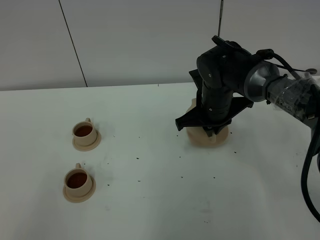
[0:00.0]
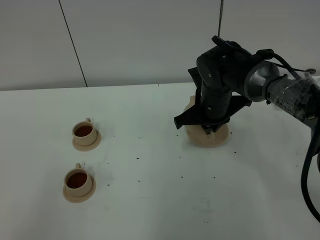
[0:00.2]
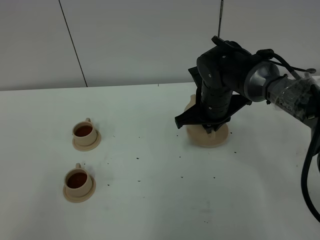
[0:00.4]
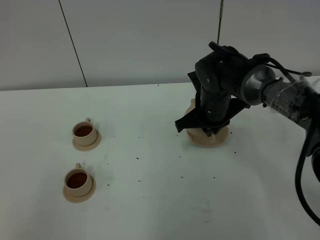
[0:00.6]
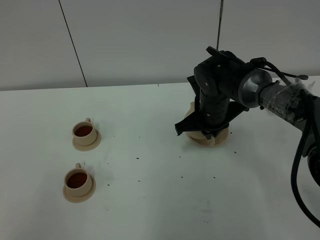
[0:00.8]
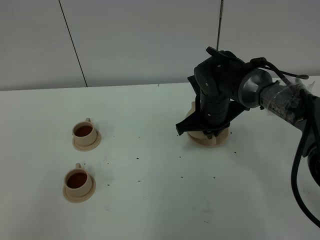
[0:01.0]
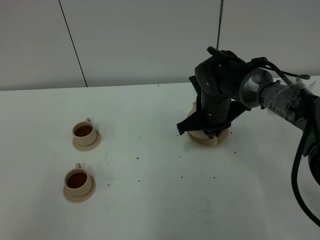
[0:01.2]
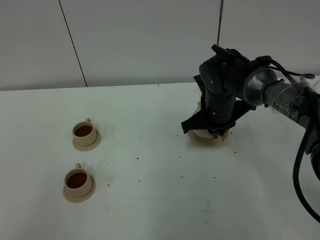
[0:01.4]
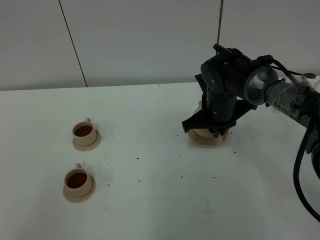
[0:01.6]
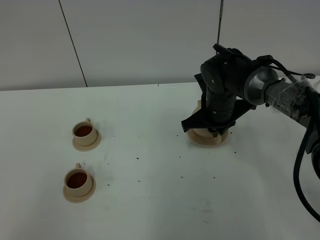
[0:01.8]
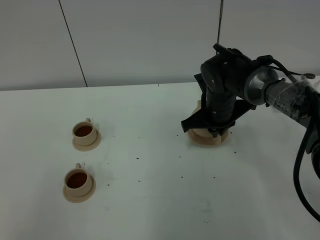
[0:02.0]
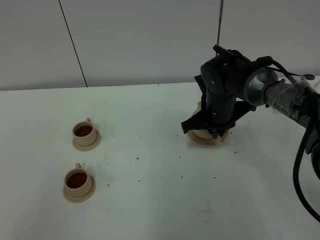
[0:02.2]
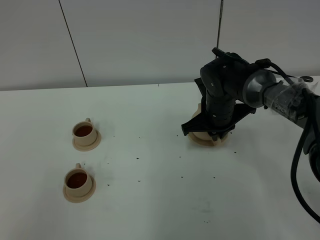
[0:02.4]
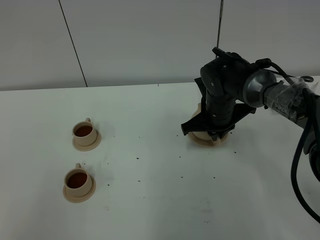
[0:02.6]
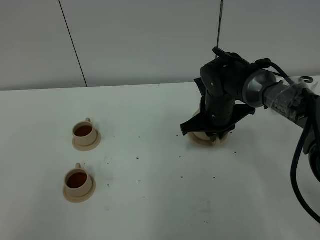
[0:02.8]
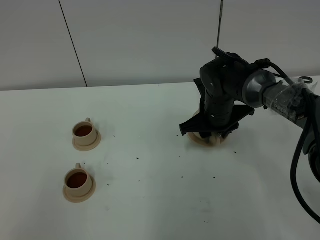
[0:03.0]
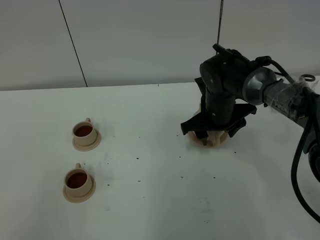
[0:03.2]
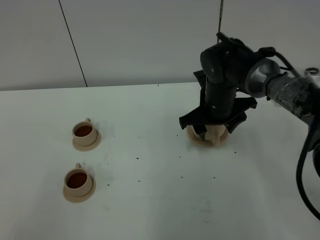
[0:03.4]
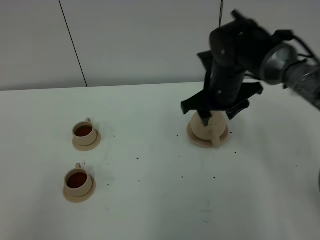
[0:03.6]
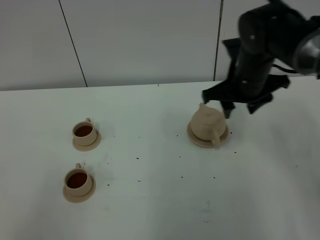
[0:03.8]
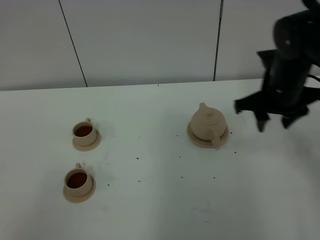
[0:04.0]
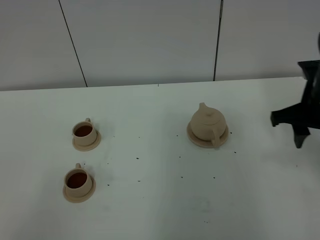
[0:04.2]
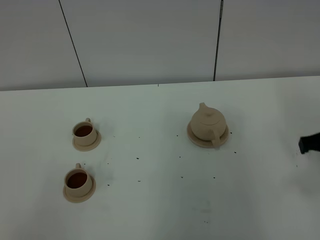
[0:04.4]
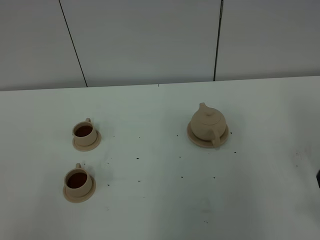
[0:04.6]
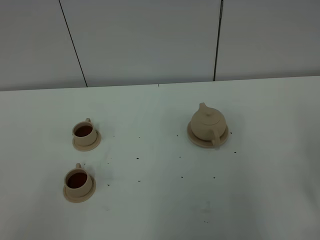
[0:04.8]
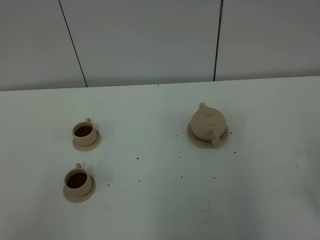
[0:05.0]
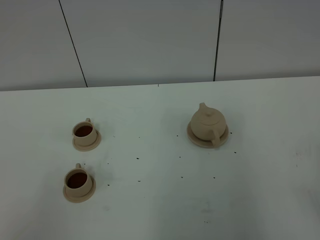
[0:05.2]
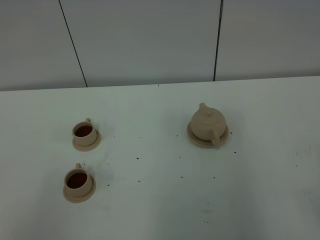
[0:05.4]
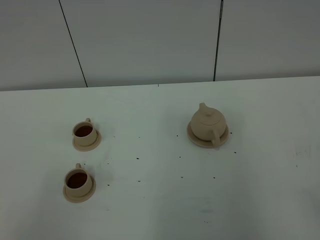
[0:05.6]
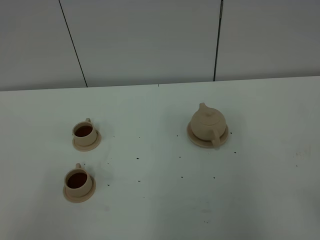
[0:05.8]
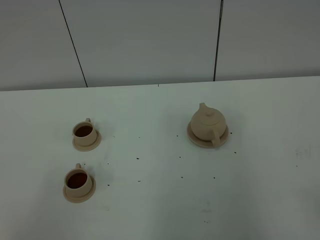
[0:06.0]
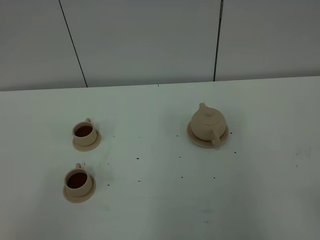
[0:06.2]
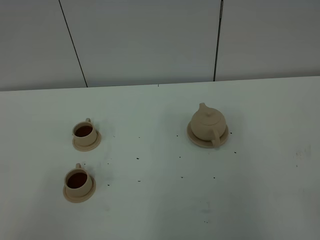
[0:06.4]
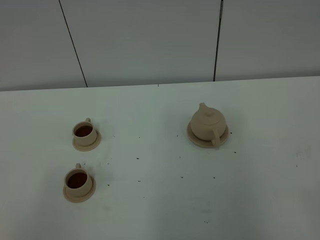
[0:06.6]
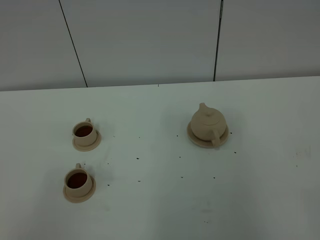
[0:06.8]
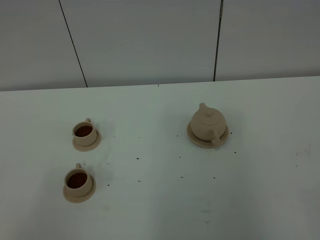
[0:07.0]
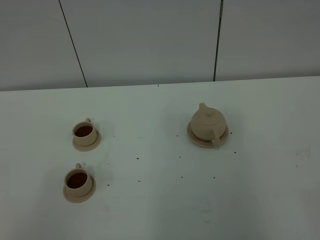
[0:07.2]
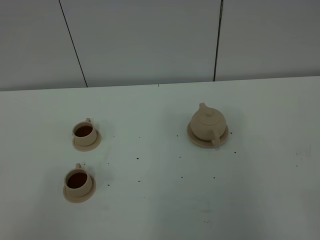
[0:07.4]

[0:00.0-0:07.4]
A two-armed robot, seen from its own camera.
Task of the whole recording: grasp the brown teapot and pour the tea into the two brown teacups one by one, put the brown teapot back in its original place.
0.0 to 1.4 s: There are only small adjustments of the grippers.
1.4 to 3.0 s: The right gripper opens up.
3.0 to 4.4 s: The right gripper moves to the right, backward and upward, roughly 25 cm.

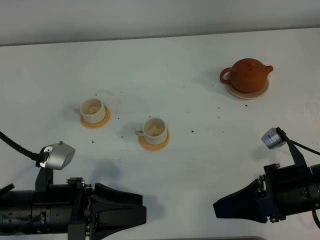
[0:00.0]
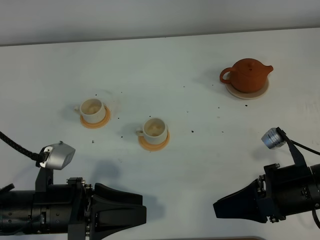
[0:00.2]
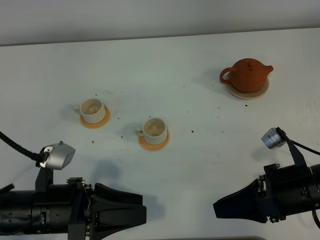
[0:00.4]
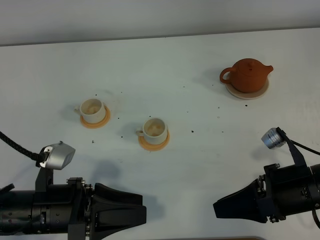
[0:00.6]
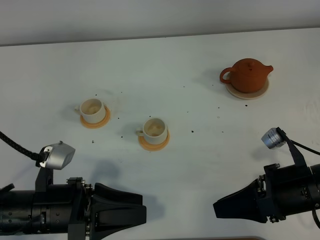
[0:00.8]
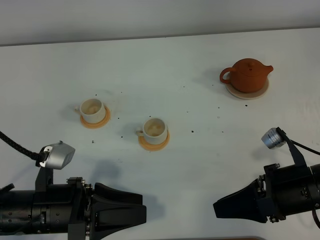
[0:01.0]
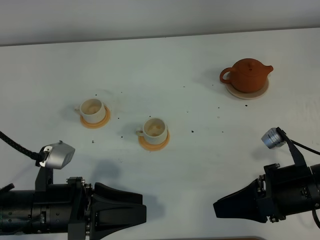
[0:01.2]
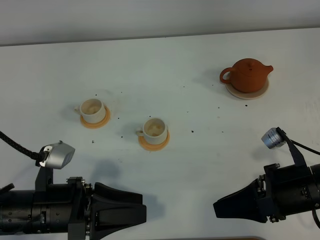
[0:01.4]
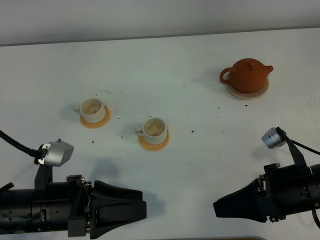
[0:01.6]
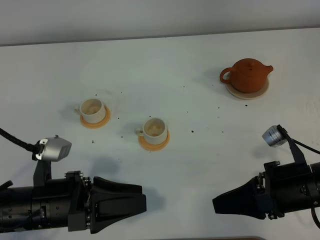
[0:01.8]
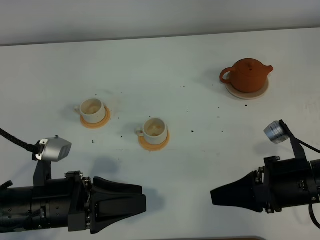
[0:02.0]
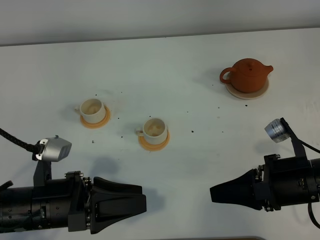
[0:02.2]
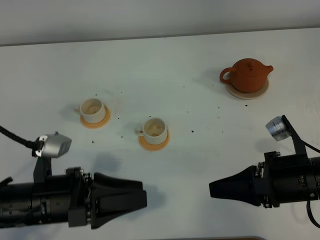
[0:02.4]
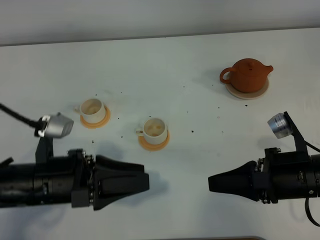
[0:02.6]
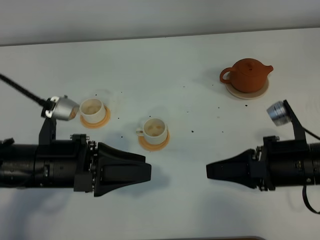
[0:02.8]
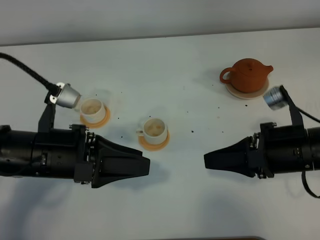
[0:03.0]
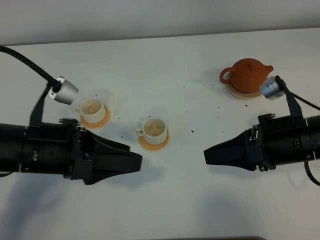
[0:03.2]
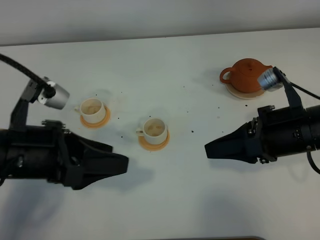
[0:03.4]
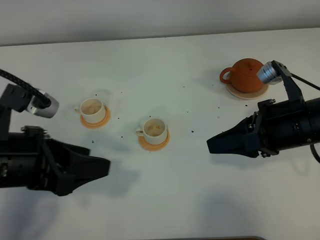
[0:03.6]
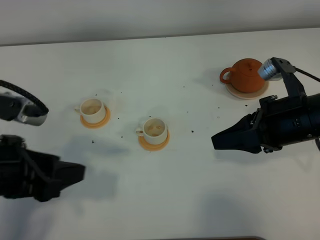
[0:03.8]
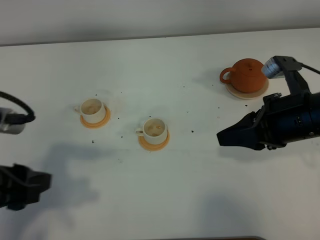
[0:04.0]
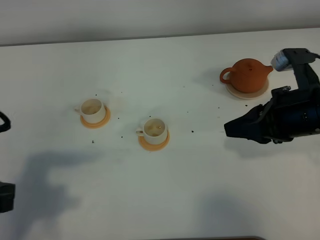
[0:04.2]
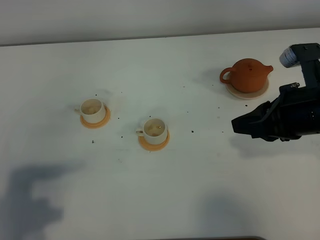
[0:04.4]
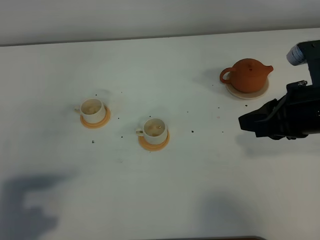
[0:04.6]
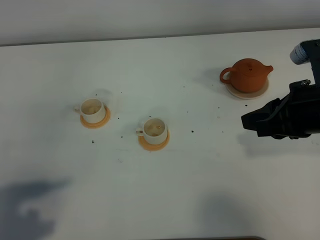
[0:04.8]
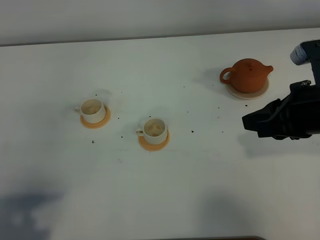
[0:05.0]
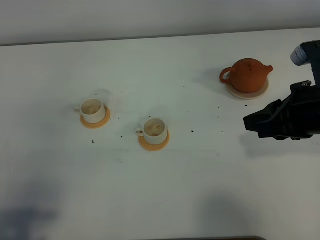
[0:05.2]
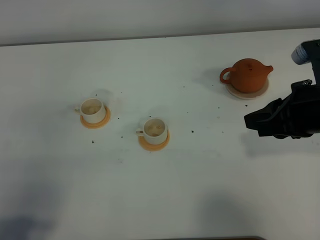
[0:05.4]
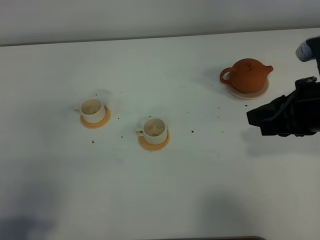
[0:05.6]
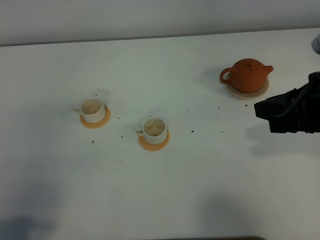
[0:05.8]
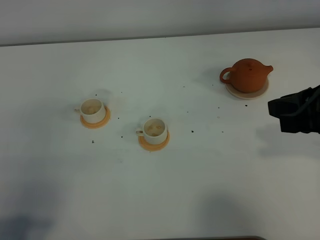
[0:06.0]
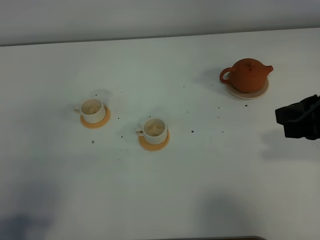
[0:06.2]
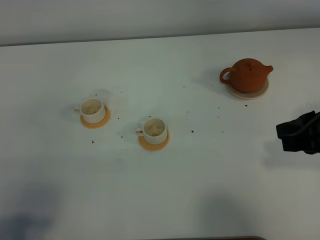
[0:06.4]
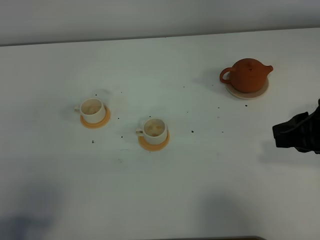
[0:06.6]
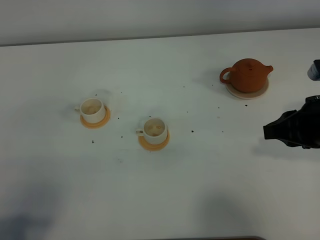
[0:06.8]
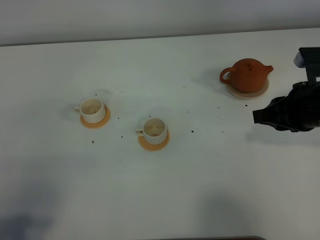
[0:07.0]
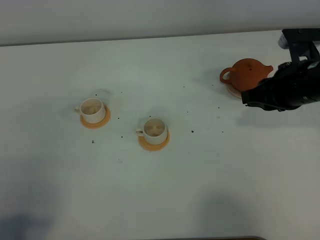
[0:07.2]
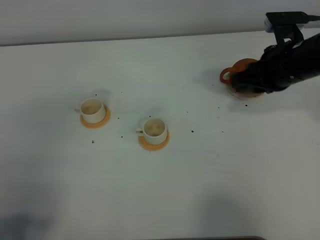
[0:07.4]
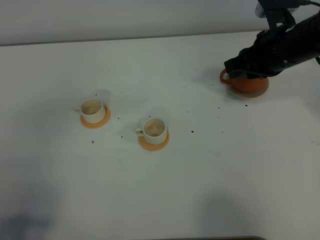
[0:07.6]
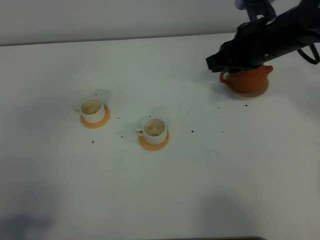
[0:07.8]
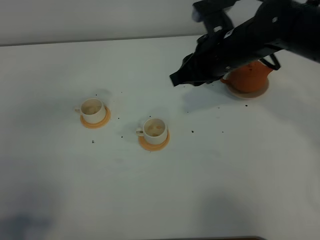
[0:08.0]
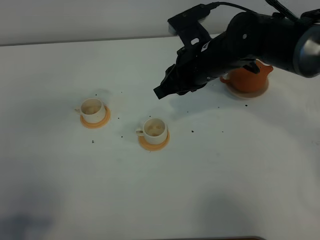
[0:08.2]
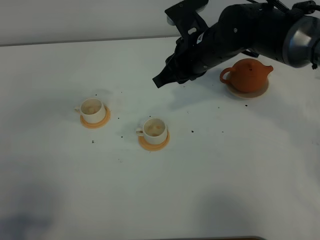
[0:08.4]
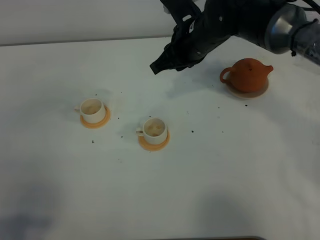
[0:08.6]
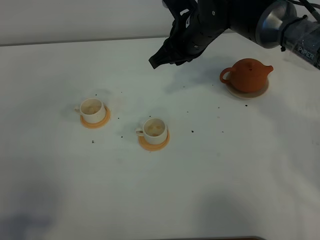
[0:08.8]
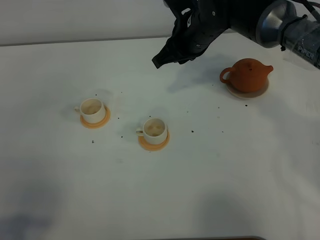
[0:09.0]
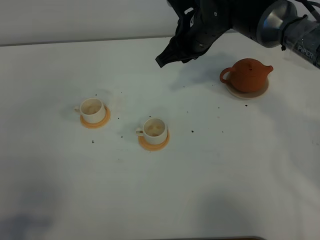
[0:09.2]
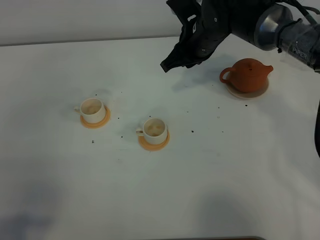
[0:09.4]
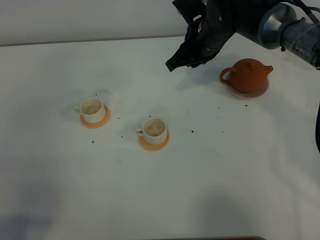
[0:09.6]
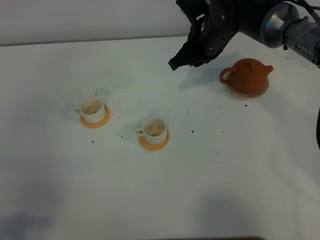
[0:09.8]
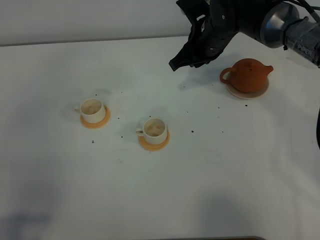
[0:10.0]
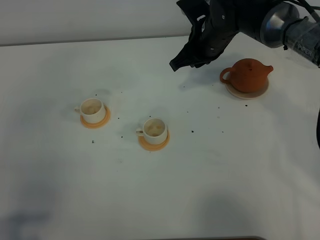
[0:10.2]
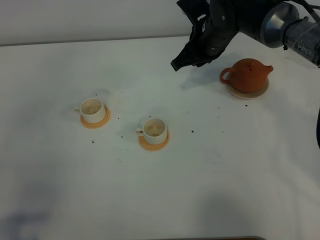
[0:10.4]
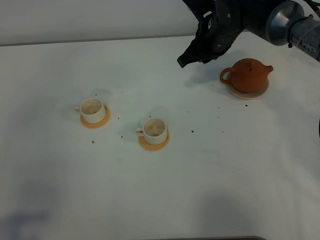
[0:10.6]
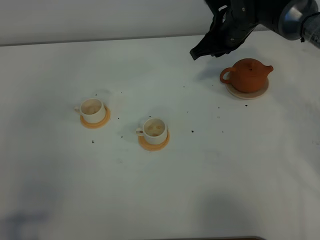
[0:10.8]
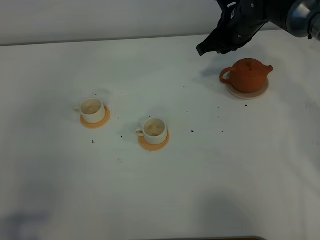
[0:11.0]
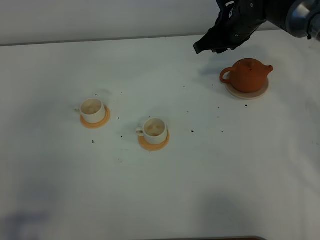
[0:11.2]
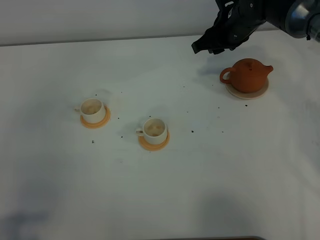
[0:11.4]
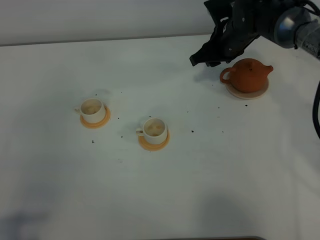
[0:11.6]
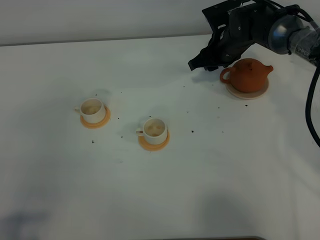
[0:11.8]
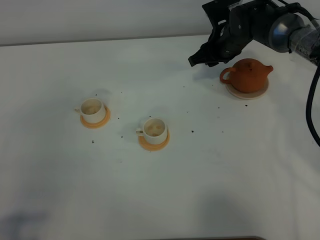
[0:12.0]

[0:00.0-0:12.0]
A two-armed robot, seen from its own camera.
Task of the whole recording: grasp the brown teapot and pour the tea into the two white teacups one by one, put the brown teapot back in its original place.
0.0 to 1.6 s: Neither gripper changes place.
1.6 to 3.0 s: The right gripper moves some 5 cm. Meanwhile the left gripper moves forward and upward, approximately 10 cm.
3.0 to 4.4 s: The left gripper moves to the left and backward, about 15 cm. Meanwhile the right gripper moves upward, some 5 cm.
4.4 to 6.0 s: The right gripper moves approximately 5 cm; the left gripper is displaced backward by approximately 10 cm.
6.0 to 7.6 s: The right gripper shifts about 20 cm forward and to the left.
7.6 to 9.0 s: The right gripper moves to the left, about 15 cm.
9.0 to 10.4 s: The grippers make only small movements.
10.4 to 12.0 s: The right gripper shifts about 5 cm forward and downward, and opens its fingers.

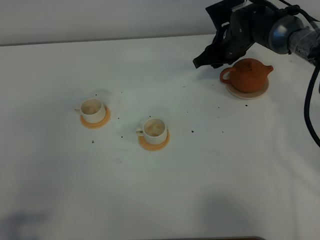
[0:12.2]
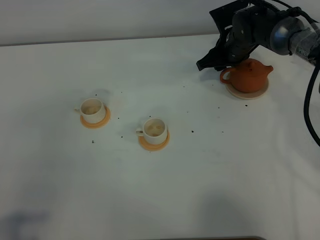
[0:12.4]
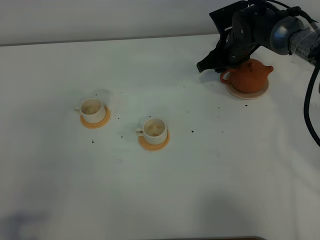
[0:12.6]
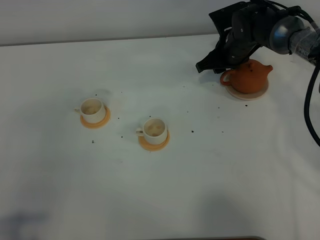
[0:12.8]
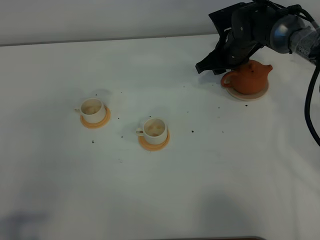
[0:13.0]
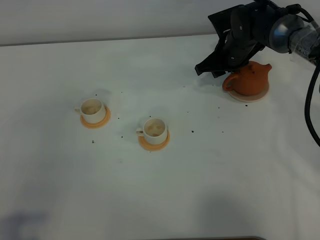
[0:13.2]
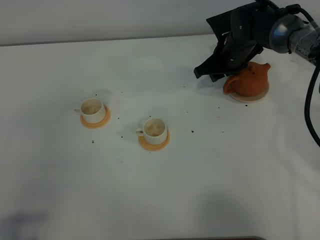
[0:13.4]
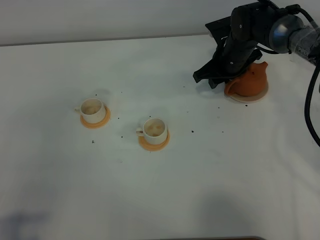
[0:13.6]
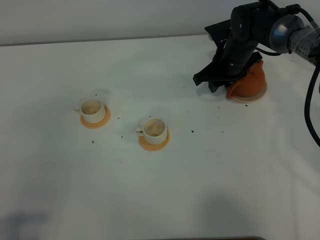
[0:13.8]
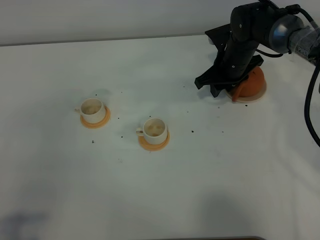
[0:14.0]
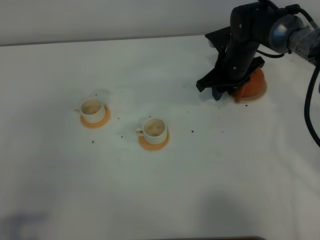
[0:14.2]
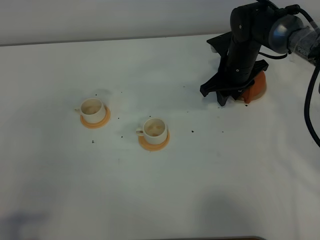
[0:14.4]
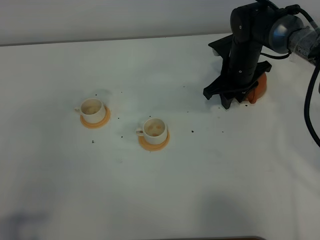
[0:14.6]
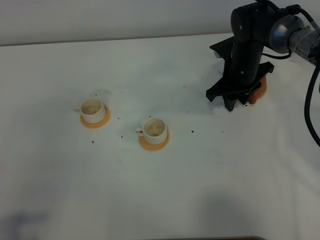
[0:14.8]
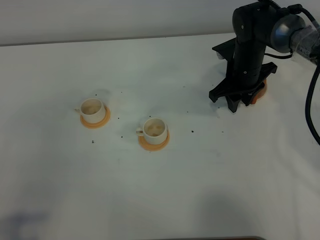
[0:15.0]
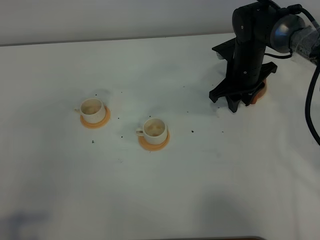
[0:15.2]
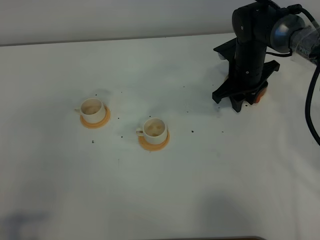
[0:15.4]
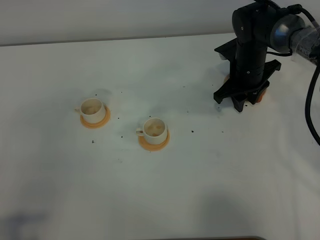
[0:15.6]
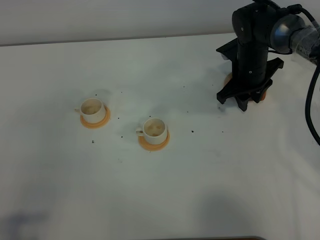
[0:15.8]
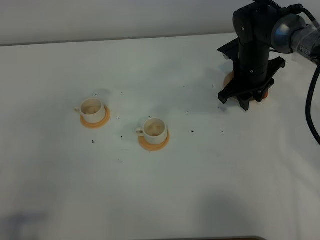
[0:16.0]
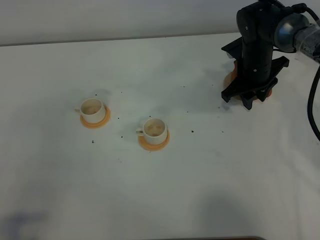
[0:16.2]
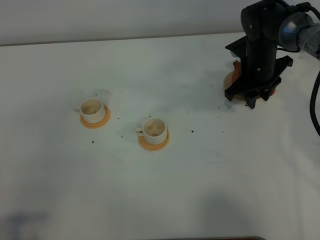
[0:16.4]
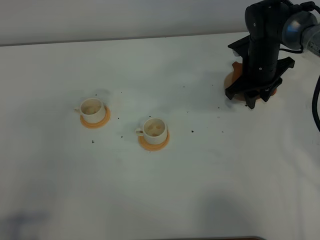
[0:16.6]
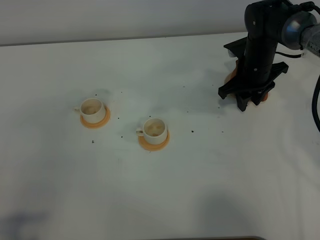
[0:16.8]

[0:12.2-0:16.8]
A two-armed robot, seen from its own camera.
Task of the whole recording: grasp the brown teapot and pour the tea into the two white teacups one by one, put the brown teapot back in its original place.
12.2 to 13.8 s: The grippers move only a little.
13.8 to 15.2 s: There are only small adjustments of the grippers.
15.2 to 16.8 s: There are only small adjustments of the grippers.
